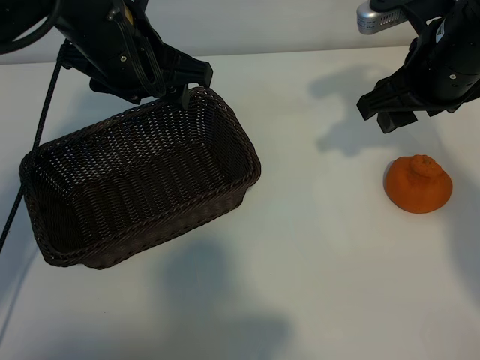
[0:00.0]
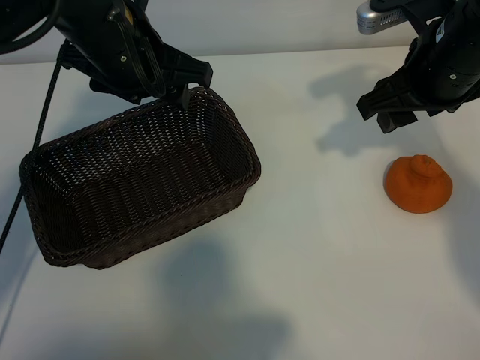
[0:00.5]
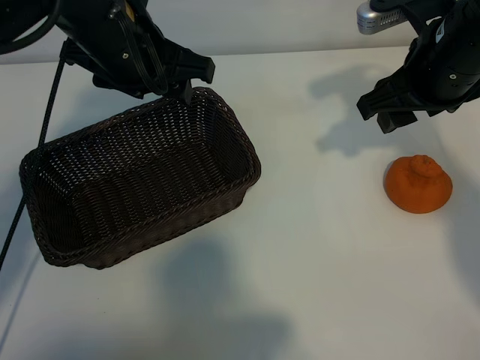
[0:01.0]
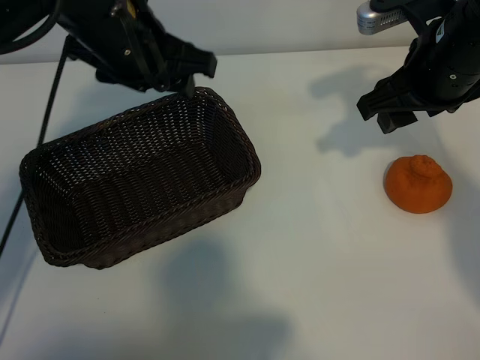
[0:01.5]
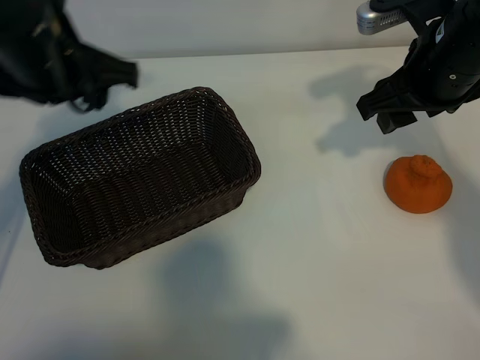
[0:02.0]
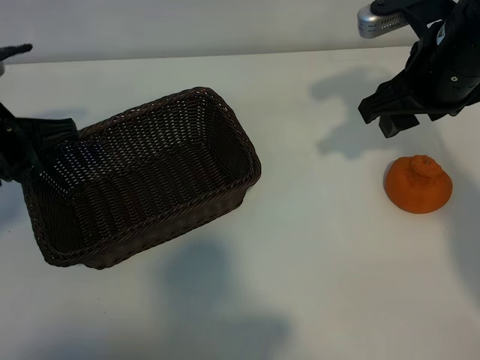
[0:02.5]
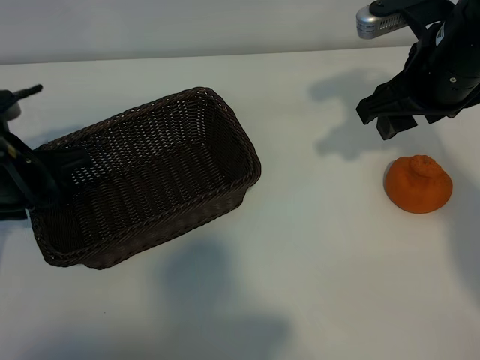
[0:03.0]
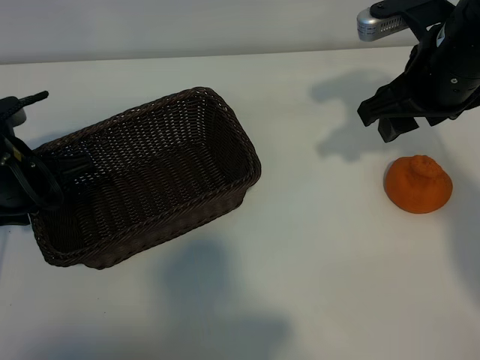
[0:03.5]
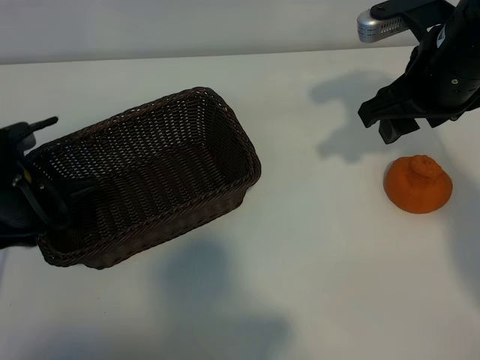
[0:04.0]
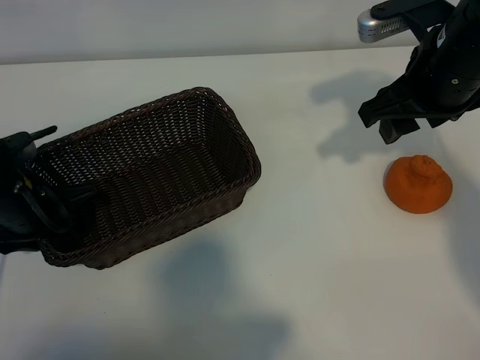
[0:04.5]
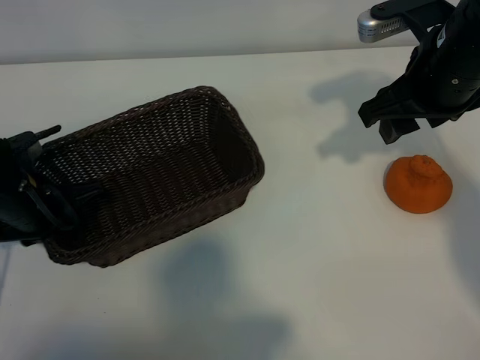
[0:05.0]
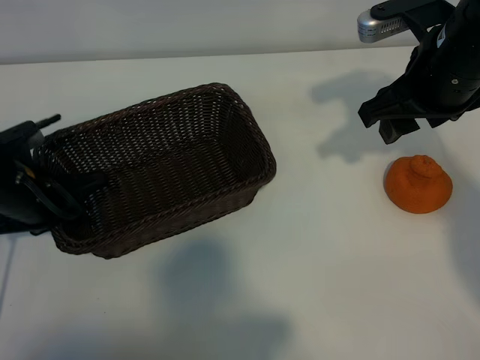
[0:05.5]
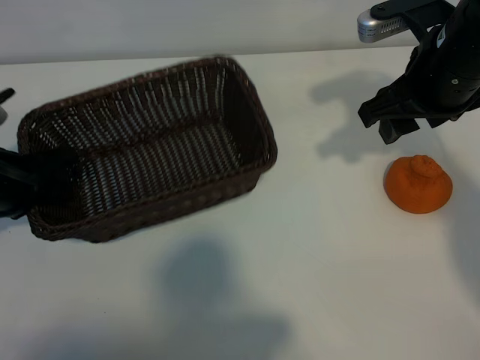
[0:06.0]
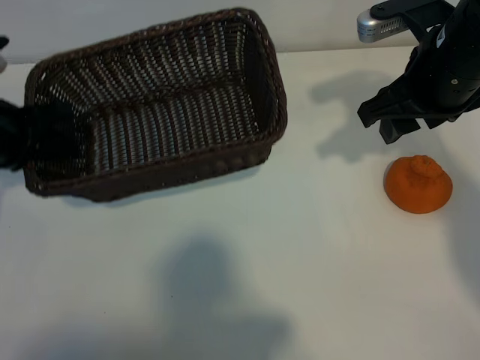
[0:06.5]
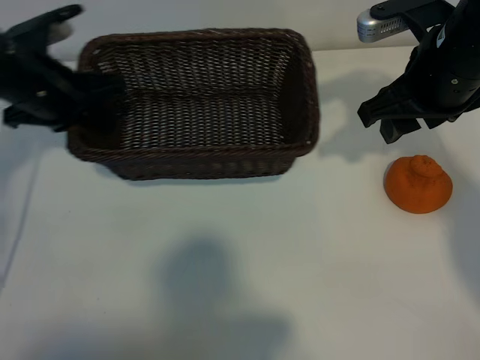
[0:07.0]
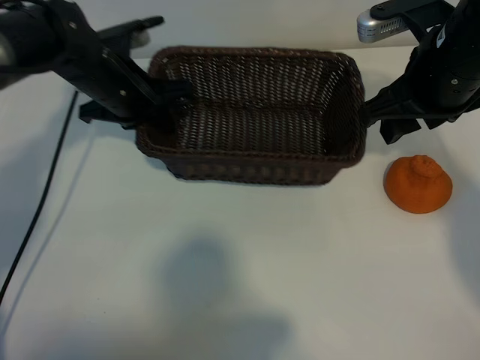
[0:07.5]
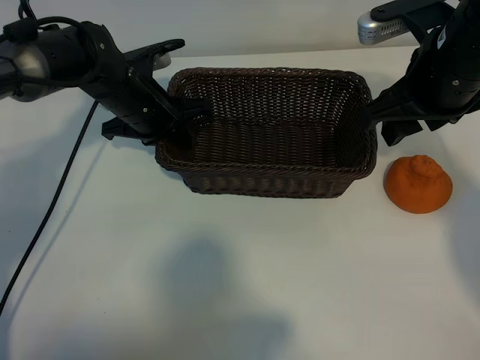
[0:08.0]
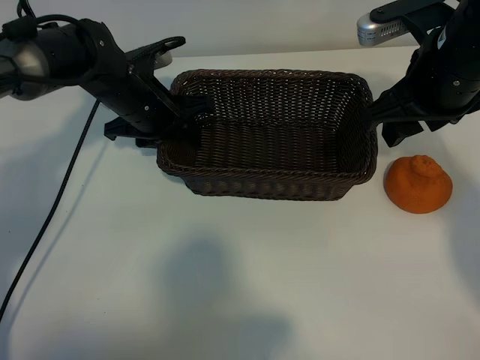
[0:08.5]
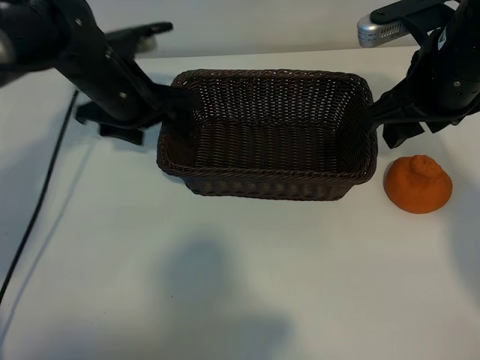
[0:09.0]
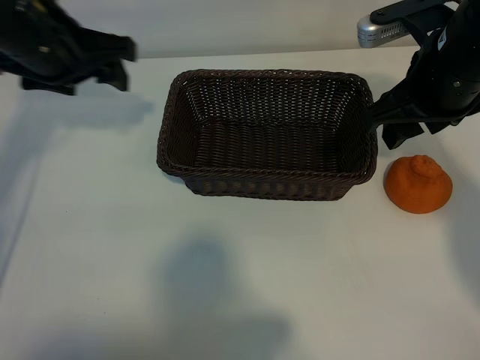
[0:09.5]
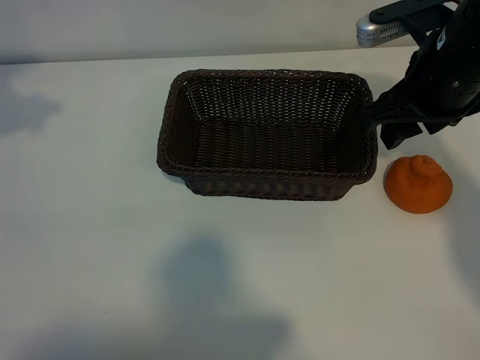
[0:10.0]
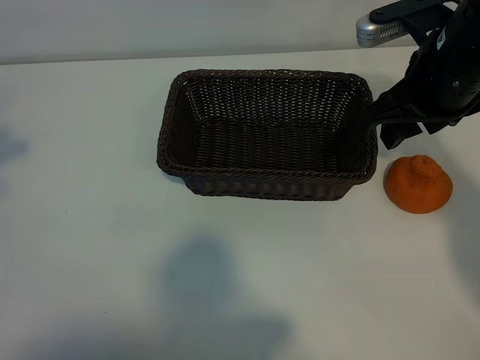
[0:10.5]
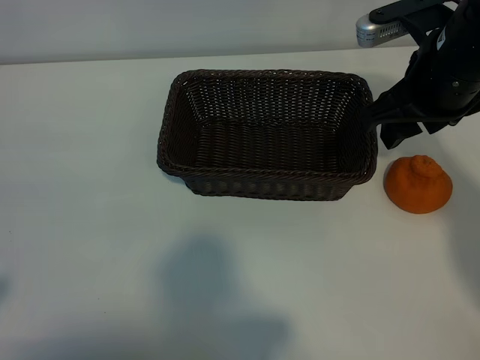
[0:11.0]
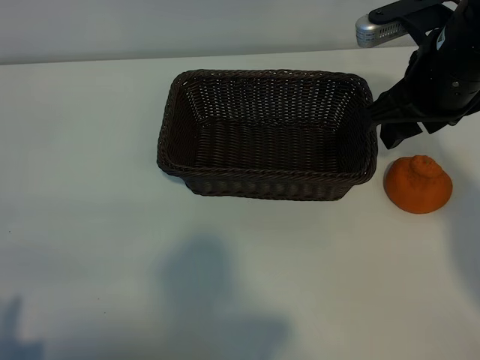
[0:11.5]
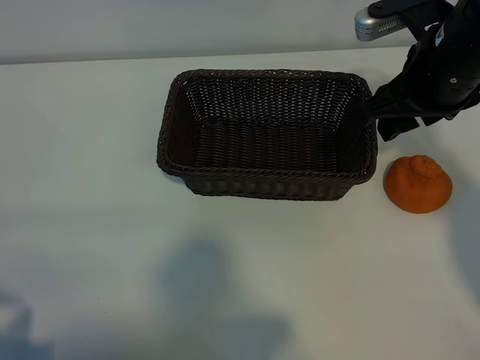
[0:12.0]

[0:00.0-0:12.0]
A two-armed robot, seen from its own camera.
Task of the whole recording: pick up the orange and put it into the basket.
Step, 0:01.0 to 0:05.0: Grasp the basket with left gripper.
Step, 0:05.5 to 0:08.0: Place the basket in the center of view with left gripper.

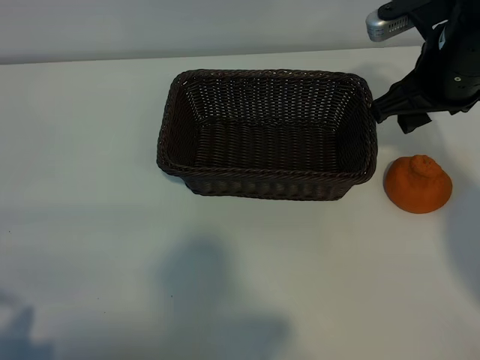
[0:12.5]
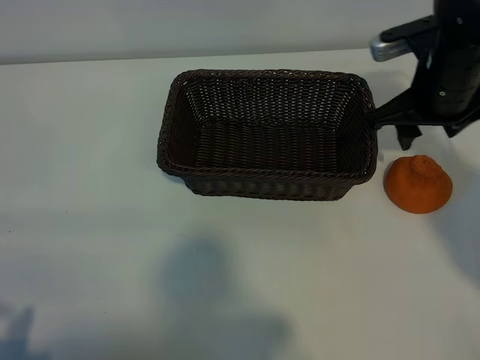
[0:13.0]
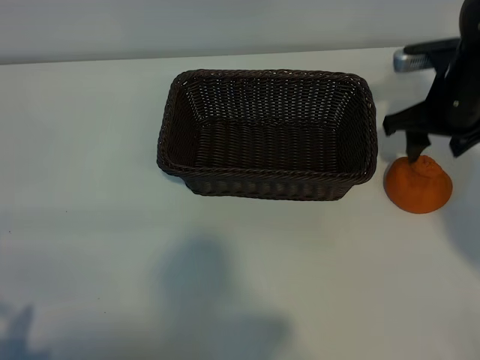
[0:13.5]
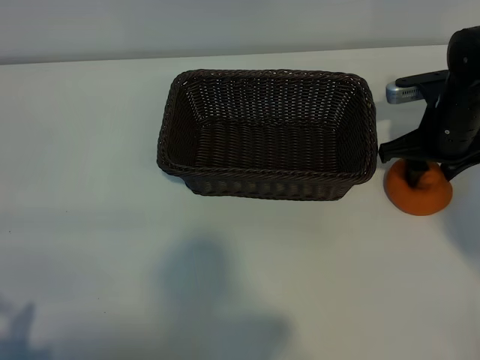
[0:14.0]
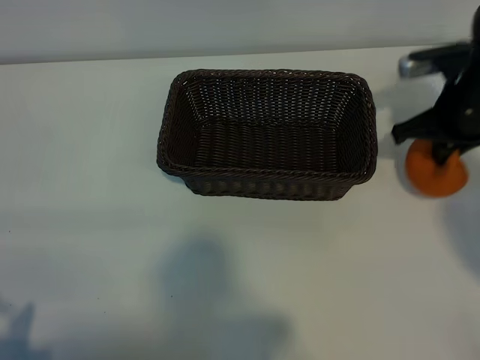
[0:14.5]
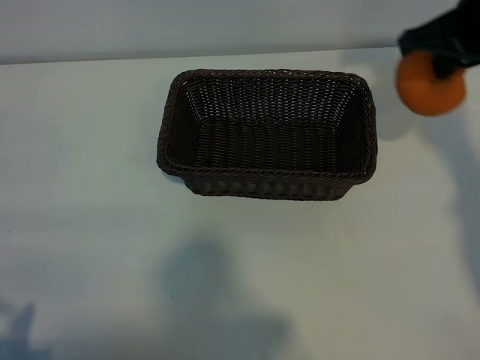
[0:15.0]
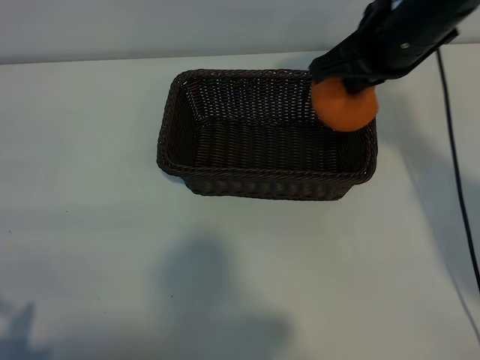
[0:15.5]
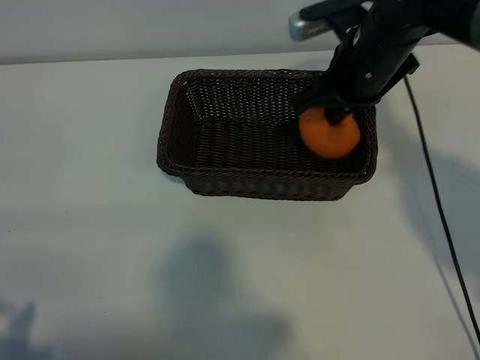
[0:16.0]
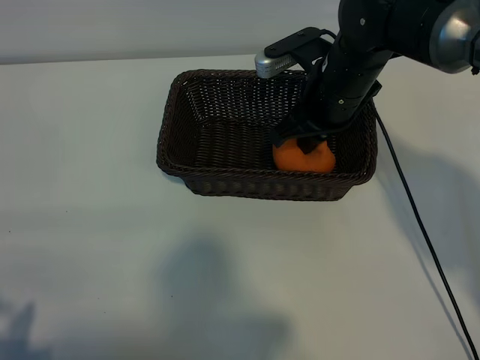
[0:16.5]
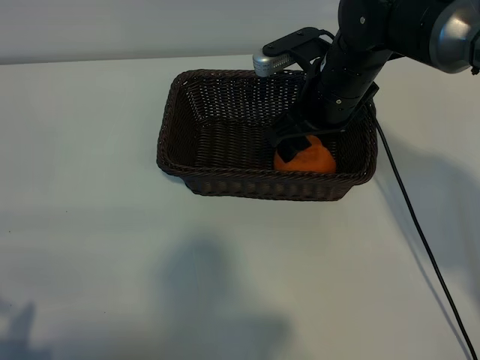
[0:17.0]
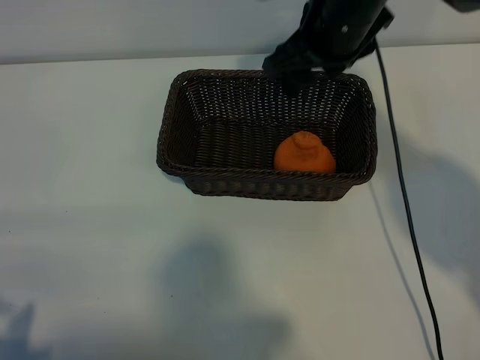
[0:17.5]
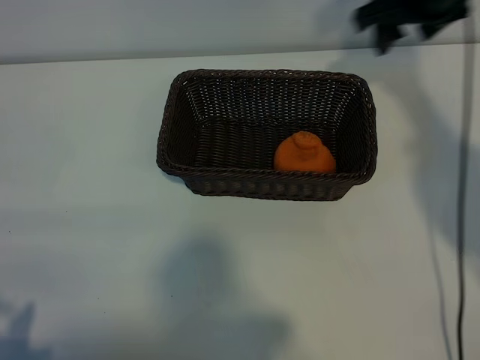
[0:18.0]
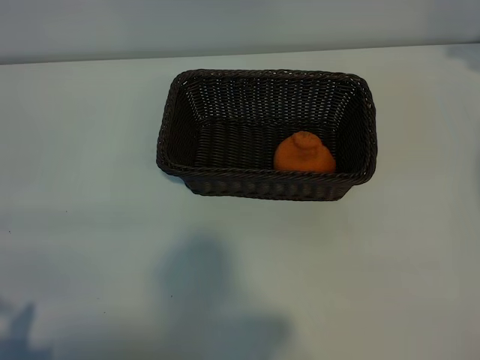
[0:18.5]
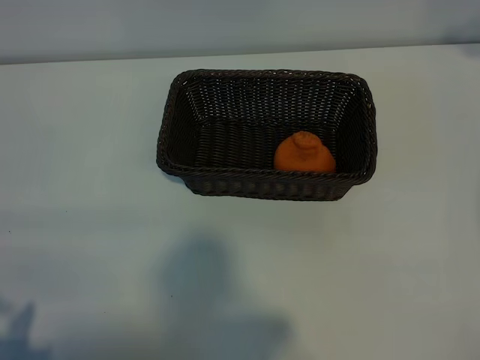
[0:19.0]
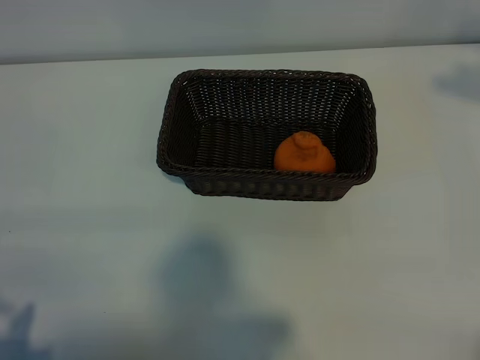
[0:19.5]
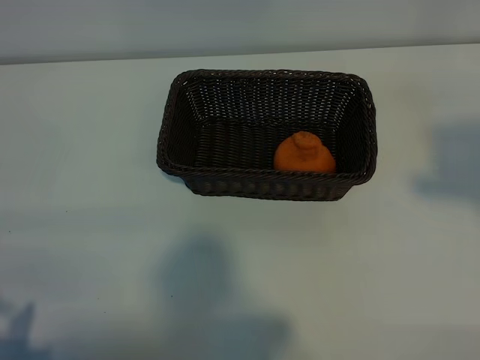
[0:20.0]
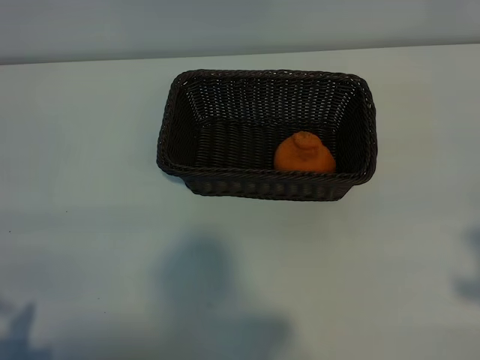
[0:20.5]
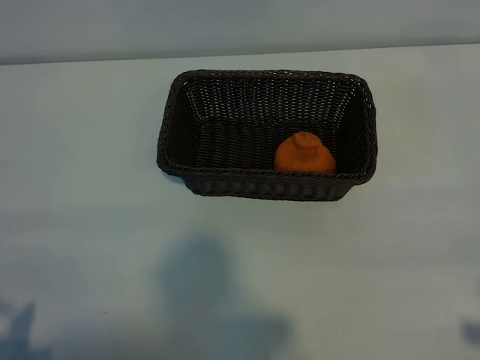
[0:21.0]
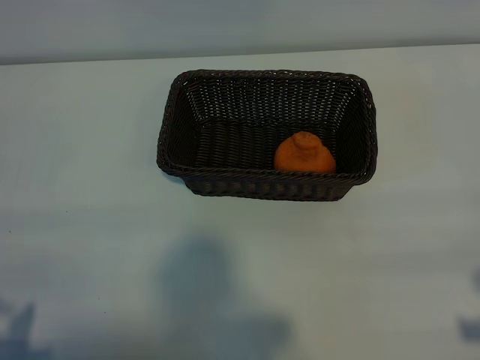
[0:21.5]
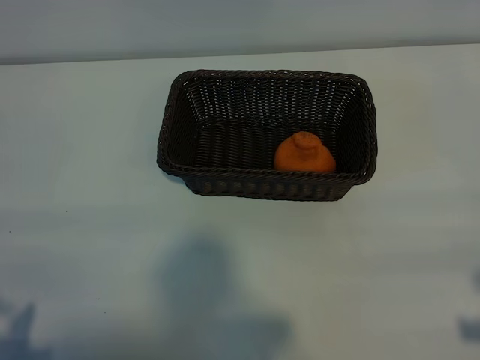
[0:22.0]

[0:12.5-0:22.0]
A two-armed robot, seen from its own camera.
Task of the whole recording: pick up the orange and put it into the basket.
Step, 0:14.5 to 0:16.5: Place the orange in the basket with right gripper.

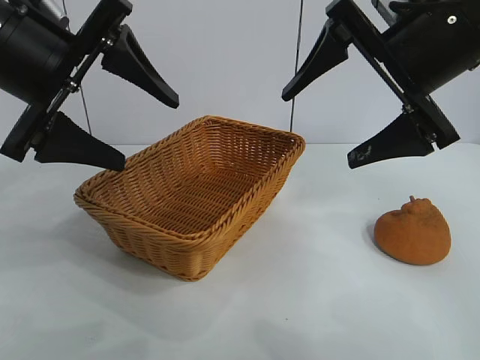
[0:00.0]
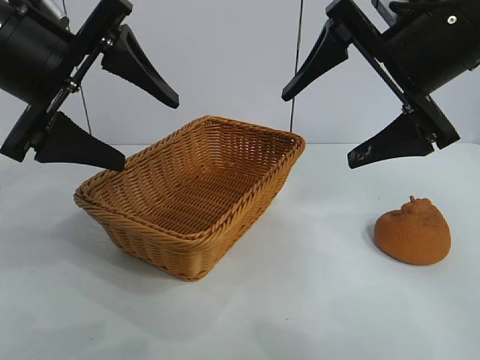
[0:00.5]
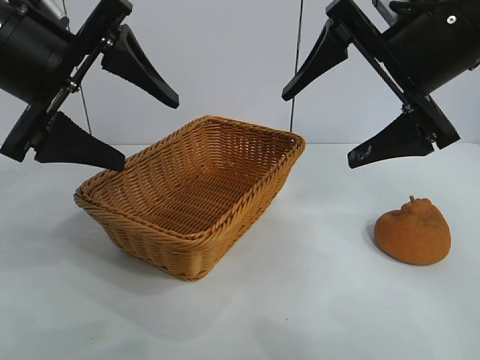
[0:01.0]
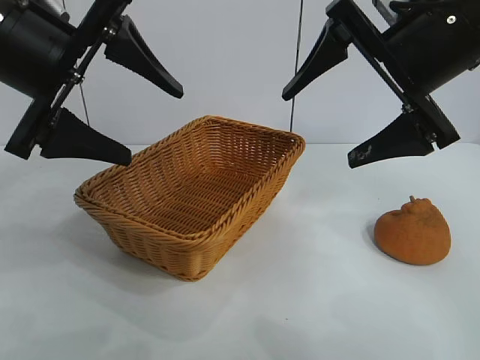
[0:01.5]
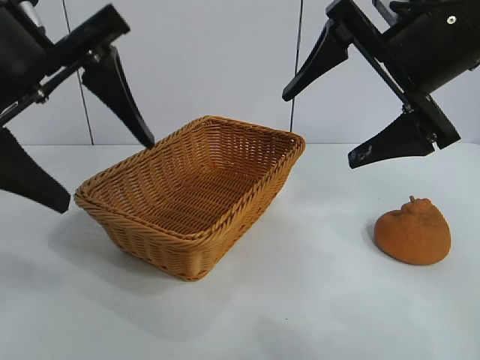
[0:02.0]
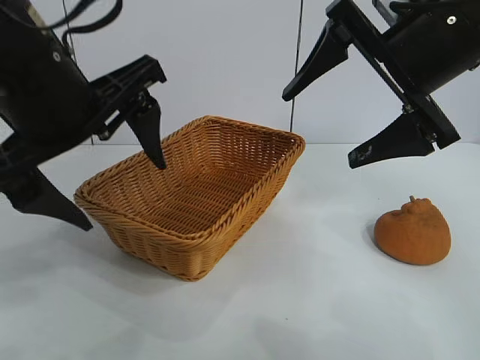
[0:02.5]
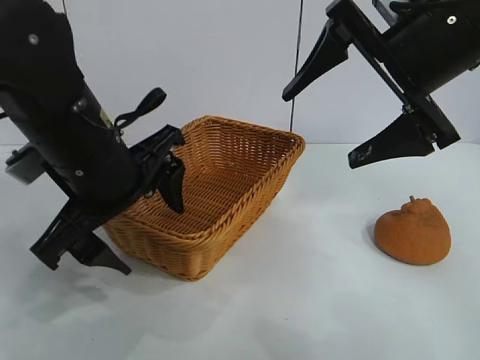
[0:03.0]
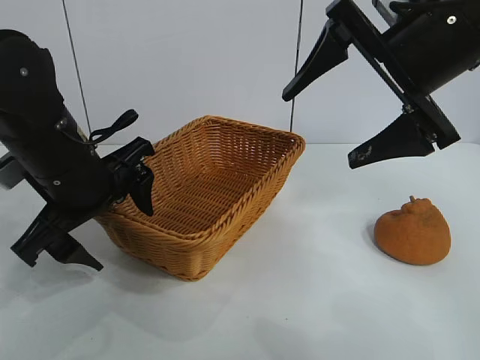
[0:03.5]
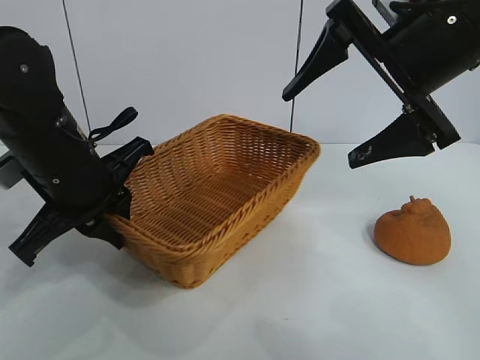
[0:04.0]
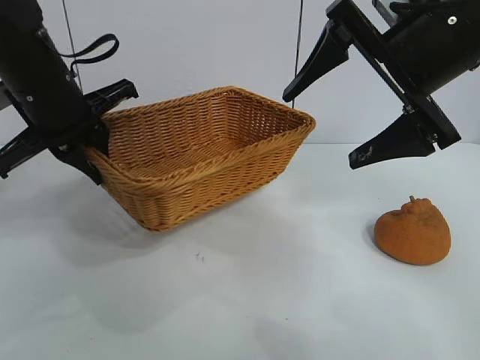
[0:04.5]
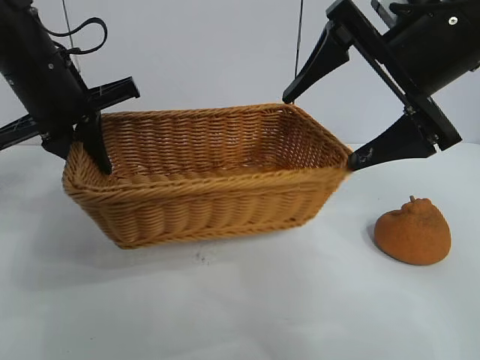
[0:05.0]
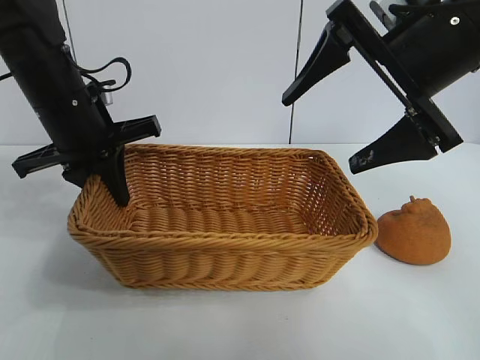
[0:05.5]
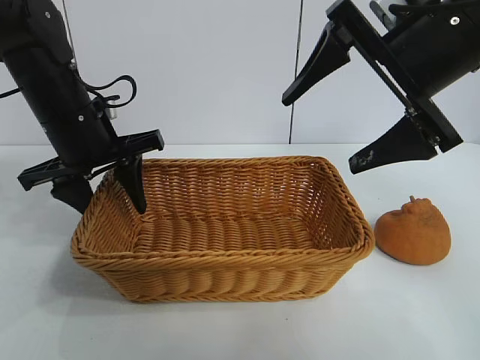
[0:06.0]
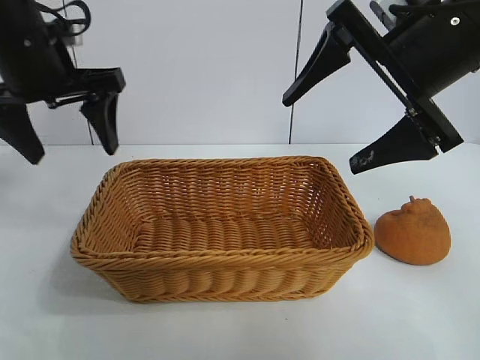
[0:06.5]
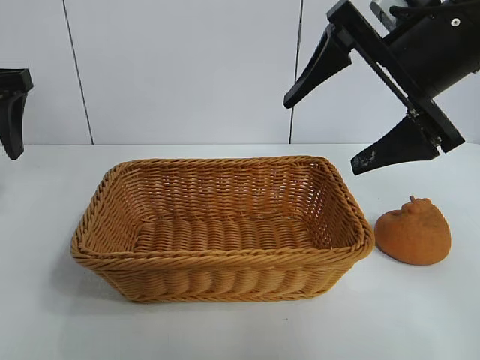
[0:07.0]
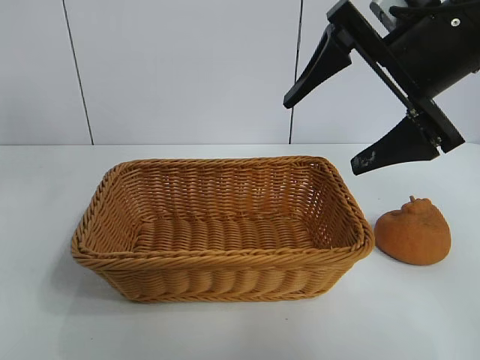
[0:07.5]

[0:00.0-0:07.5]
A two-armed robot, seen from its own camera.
Task of the whole recording: pick up the orange and put it into the basket.
Step, 0:01.5 to 0:04.0: Grasp the basket with left gripper.
Step, 0:04.5 to 0:06.0: Place the basket in the center of view with left gripper.
